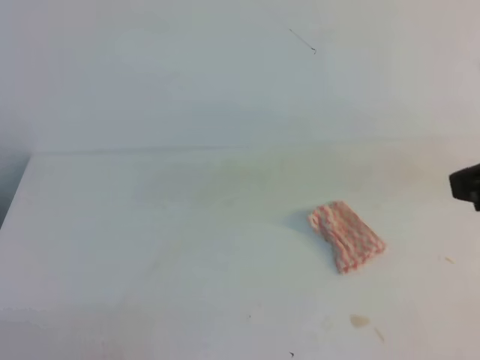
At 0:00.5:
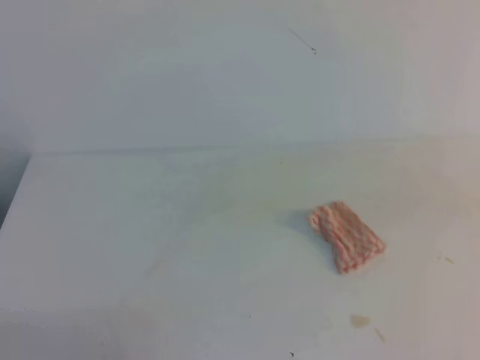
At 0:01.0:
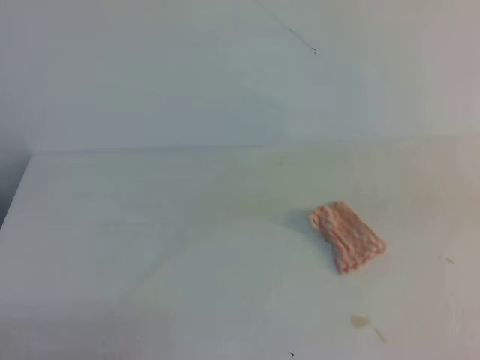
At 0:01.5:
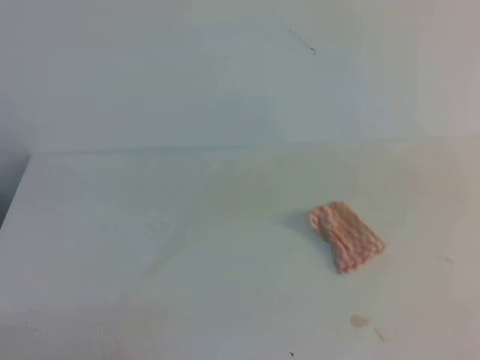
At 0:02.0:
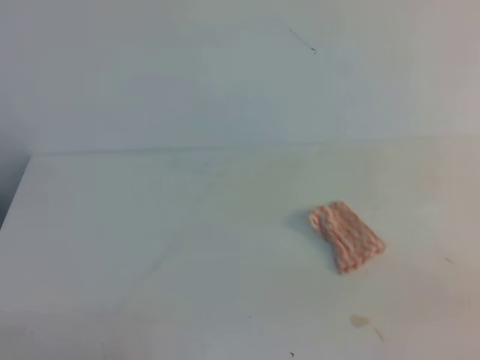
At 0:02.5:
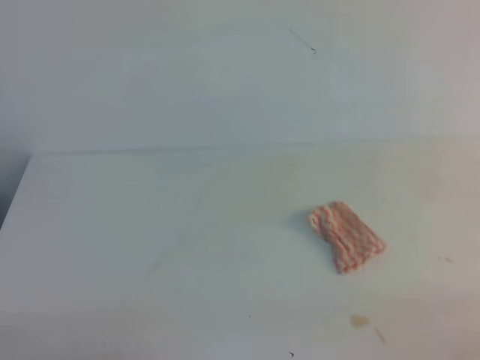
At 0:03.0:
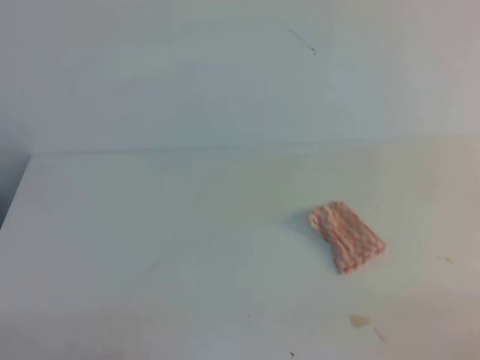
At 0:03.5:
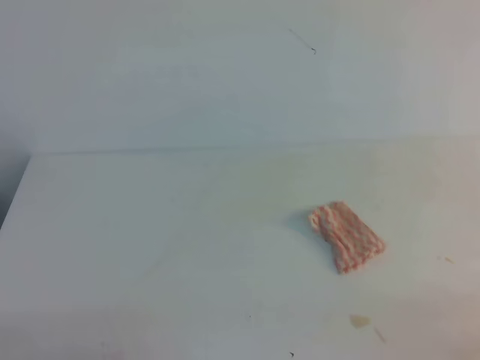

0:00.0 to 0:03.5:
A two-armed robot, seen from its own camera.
0:00.0 to 0:02.0: The right gripper moves backward, downward and to the right, approximately 20 cm.
